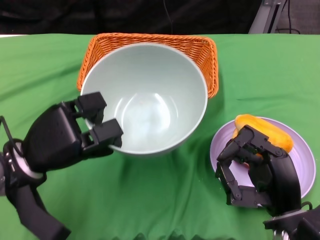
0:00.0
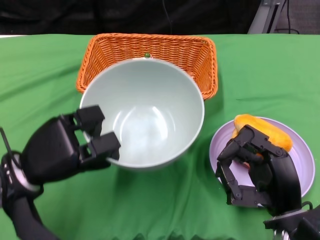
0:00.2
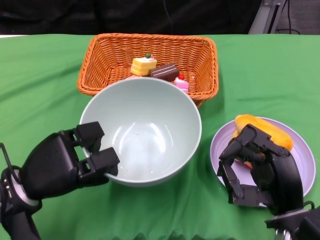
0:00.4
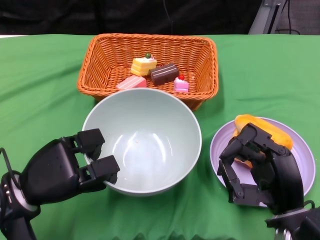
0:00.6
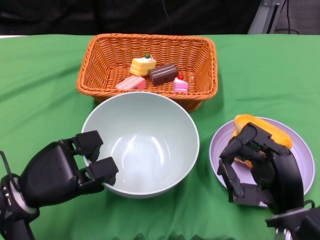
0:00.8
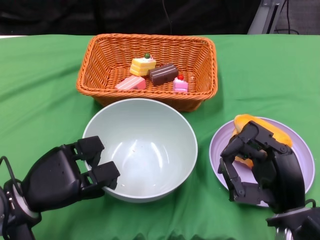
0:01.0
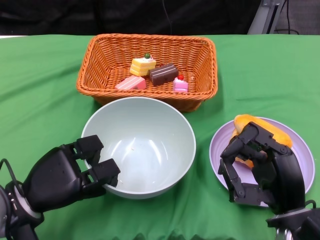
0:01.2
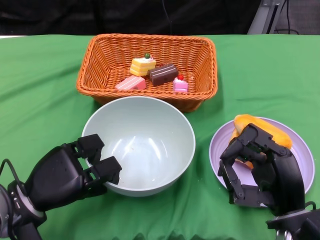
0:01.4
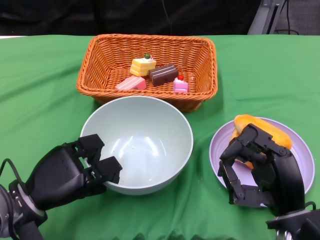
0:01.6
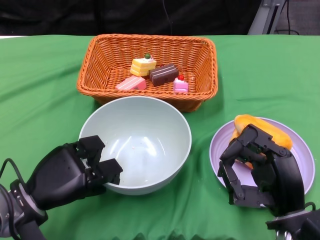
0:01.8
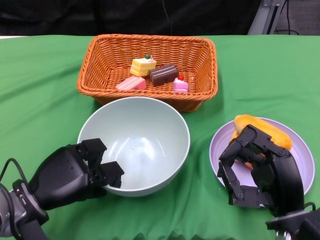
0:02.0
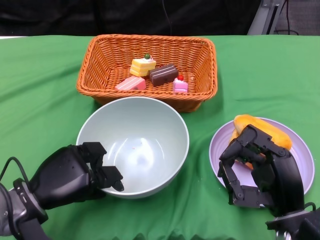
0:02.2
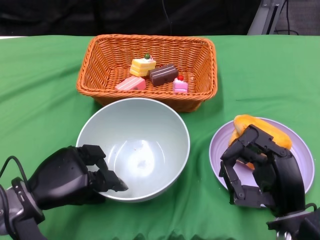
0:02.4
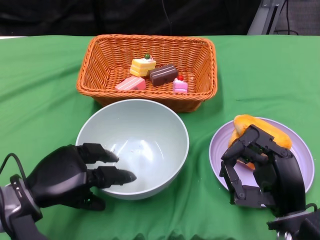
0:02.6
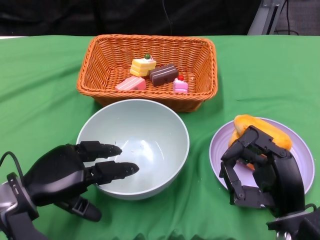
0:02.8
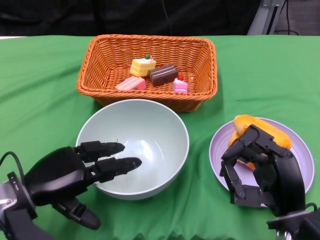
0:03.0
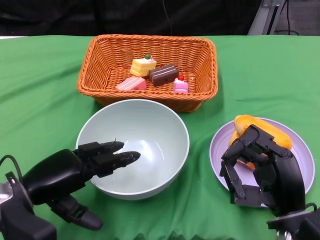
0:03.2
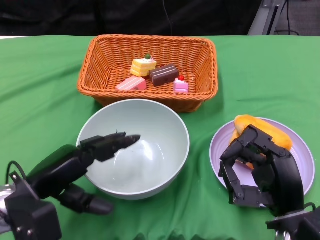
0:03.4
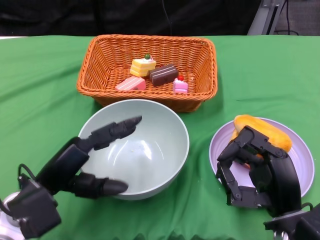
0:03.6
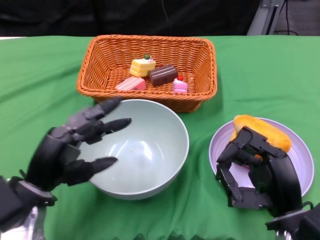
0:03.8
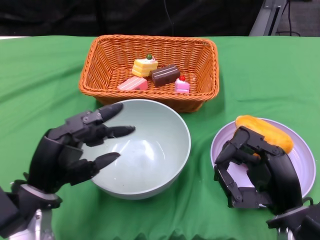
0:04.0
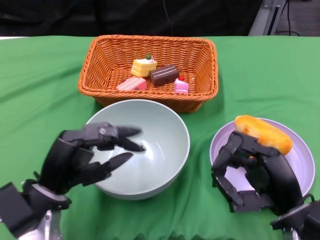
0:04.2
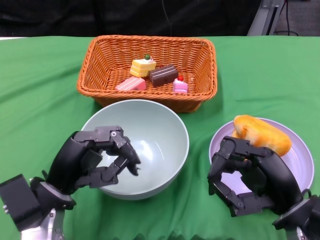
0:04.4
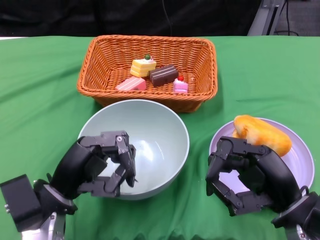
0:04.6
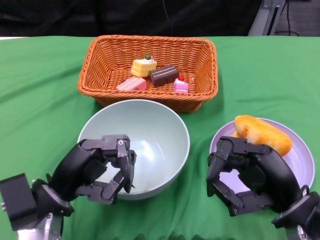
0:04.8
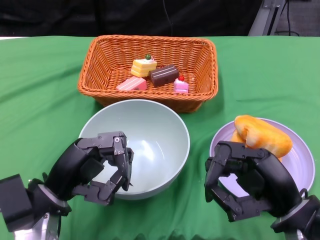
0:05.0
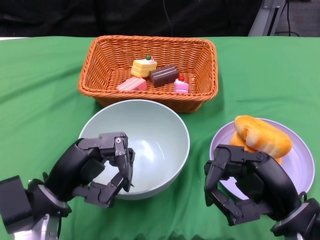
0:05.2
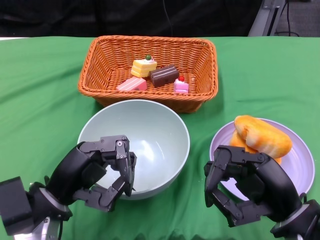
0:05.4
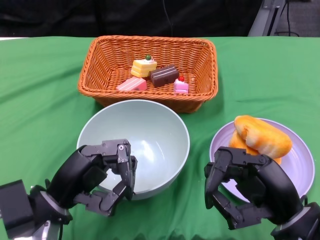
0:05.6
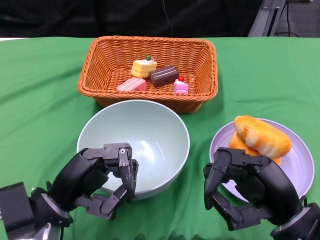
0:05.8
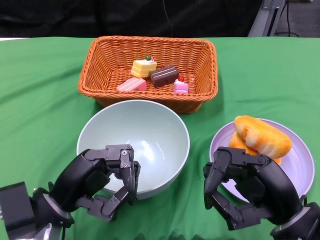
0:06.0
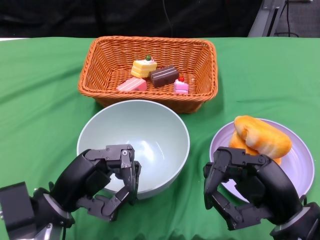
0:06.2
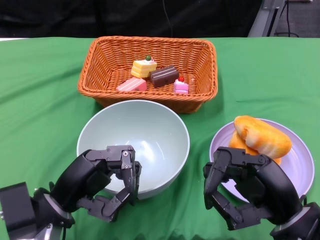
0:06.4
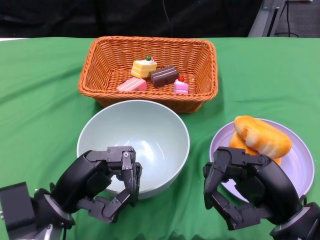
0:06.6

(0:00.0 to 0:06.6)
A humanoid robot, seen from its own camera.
Step, 0:00.0 - 0:02.6: Place the bowl on the table with the left gripper.
0:00.0 - 0:01.6: The left hand shifts some 5 cm downward.
0:05.0 - 0:06.6: The hands stay close to where they were, moving slightly.

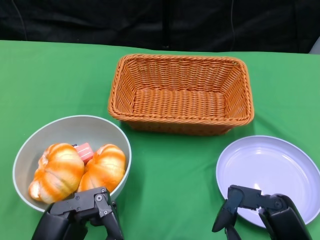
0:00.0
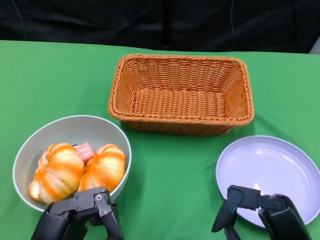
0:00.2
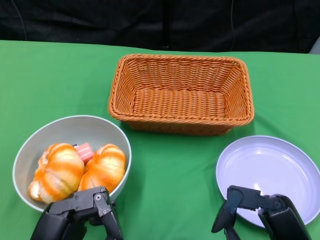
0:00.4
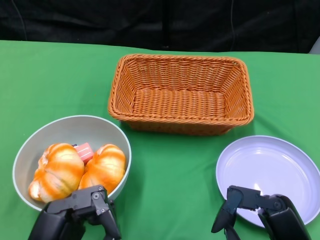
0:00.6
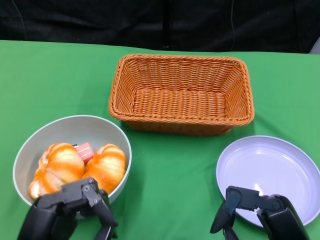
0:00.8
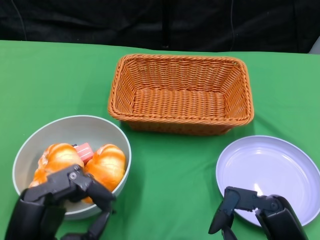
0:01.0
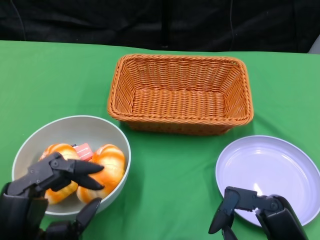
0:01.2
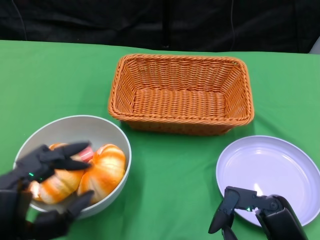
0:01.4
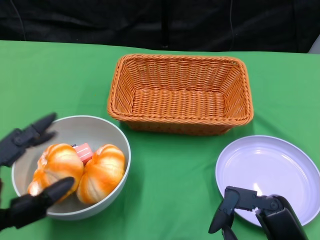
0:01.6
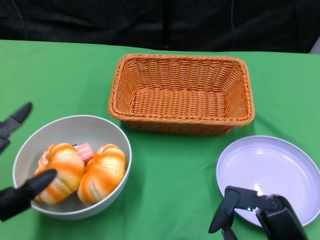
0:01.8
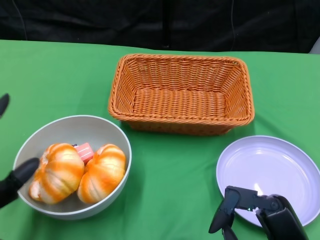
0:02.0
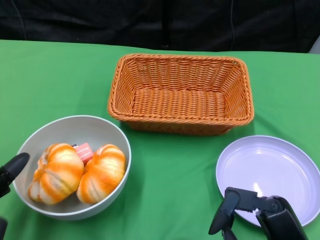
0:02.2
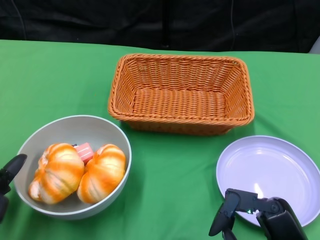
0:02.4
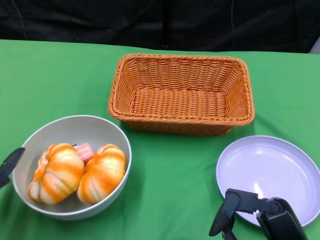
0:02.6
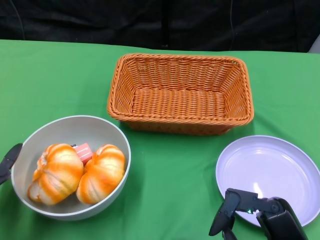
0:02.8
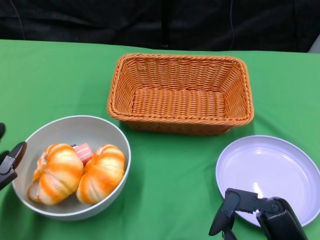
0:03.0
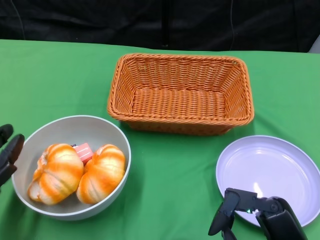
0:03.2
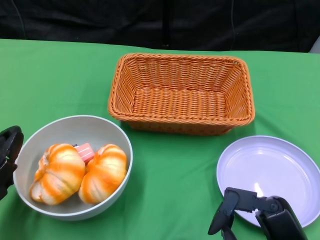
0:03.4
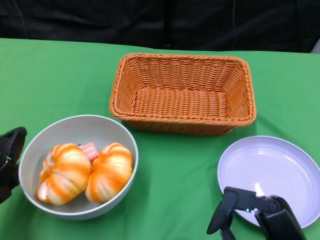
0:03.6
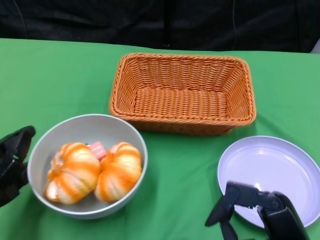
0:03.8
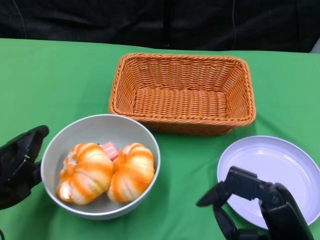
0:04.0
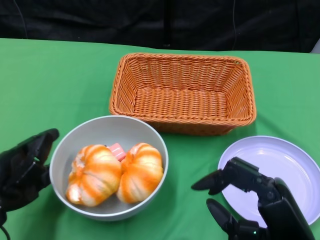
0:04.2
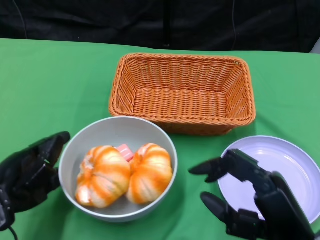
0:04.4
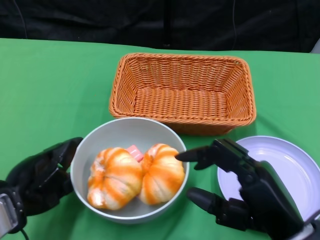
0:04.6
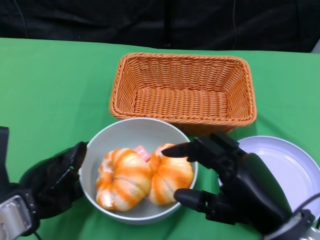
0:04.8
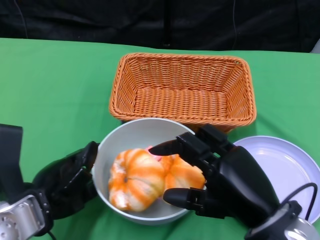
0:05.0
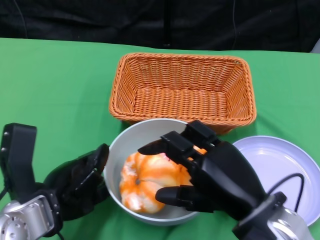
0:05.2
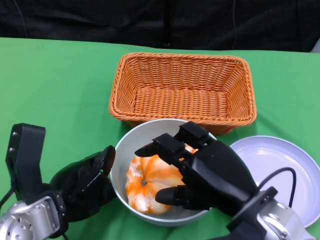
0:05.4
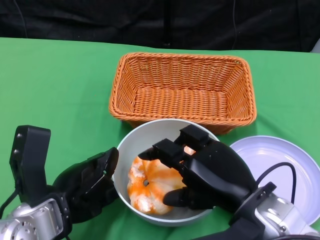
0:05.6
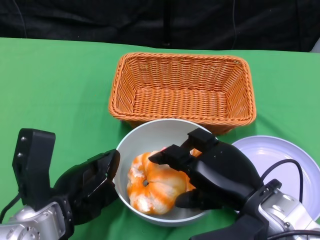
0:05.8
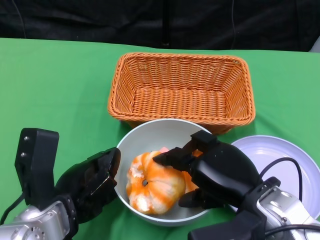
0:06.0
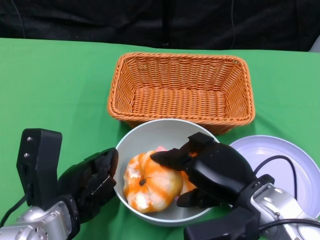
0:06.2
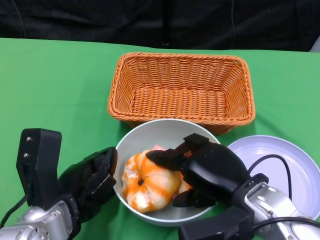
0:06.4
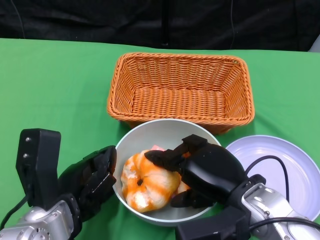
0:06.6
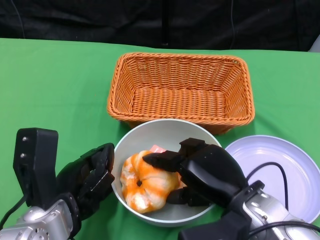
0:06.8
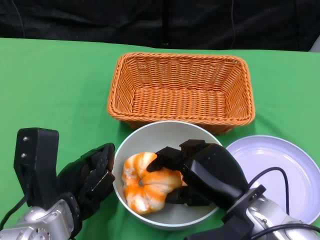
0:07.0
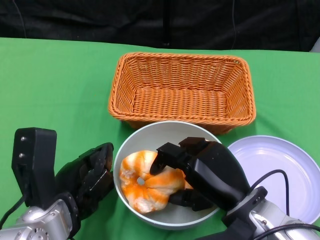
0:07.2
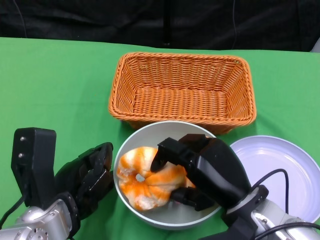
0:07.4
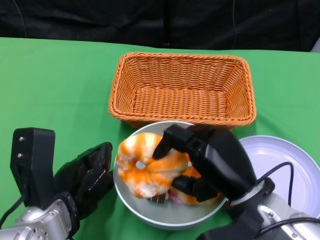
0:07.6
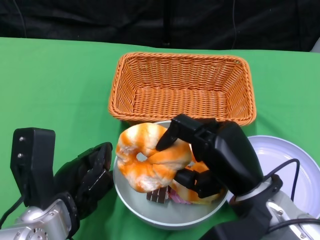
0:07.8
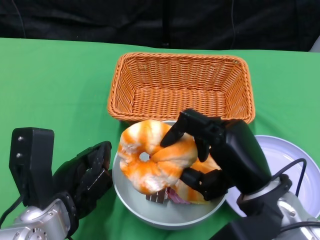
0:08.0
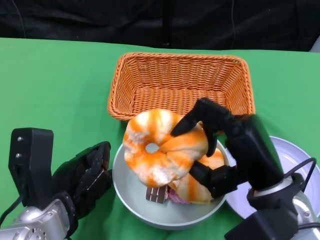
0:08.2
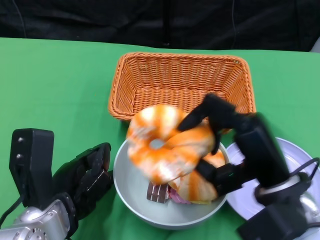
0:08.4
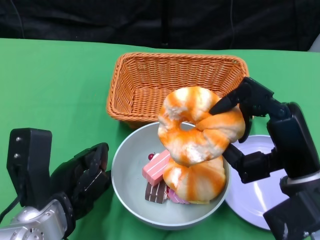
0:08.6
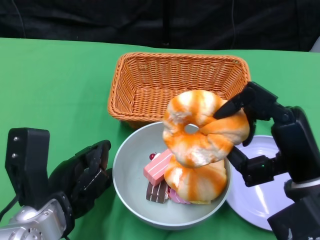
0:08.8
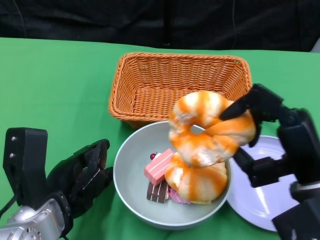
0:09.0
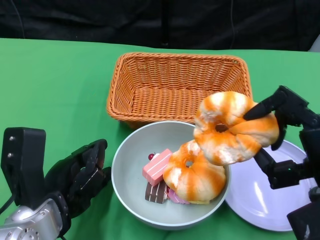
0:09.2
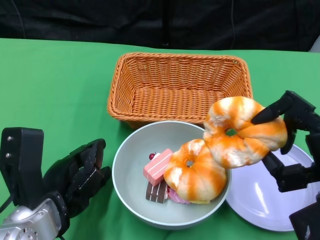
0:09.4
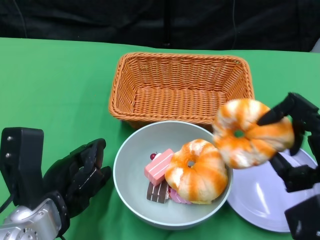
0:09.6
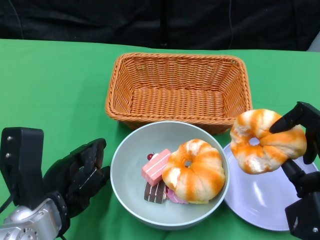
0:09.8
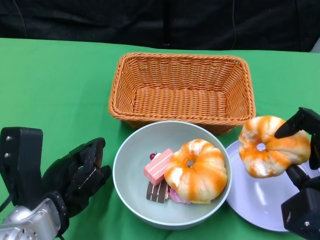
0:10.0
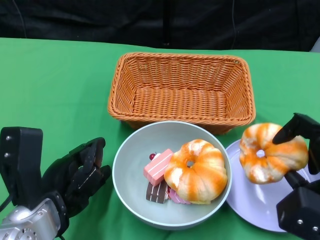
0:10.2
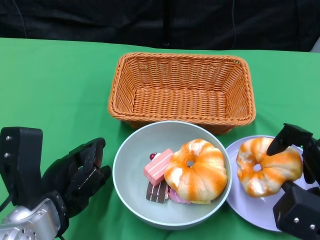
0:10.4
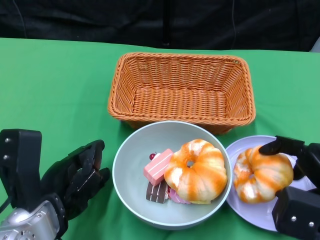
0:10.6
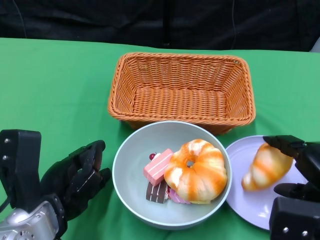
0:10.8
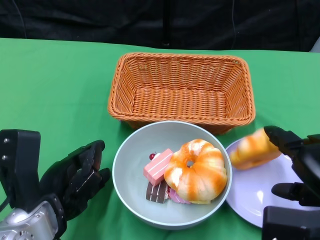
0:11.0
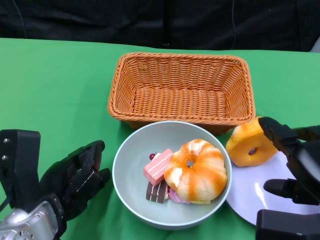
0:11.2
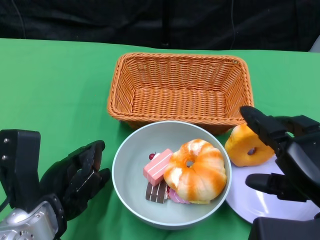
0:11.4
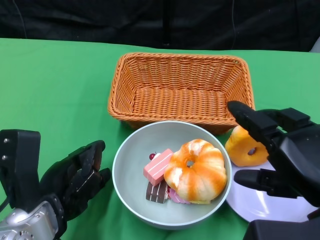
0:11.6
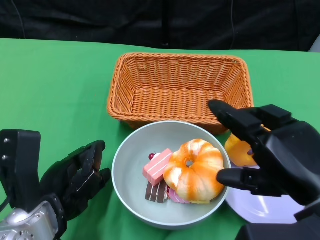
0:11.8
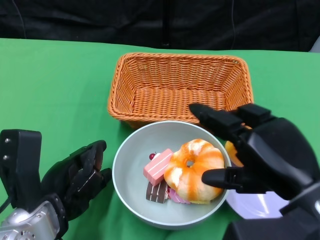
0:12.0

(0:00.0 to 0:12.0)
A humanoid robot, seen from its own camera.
Step, 0:00.0 - 0:05.4: Push the bowl to the center of the table using the left gripper.
Step, 0:05.6 - 0:11.2: Pick up the bread with the right gripper and place it on the plate.
0:01.6 - 0:03.0: The left hand travels forward by roughly 5 cm.
0:04.4 - 0:06.0: The right hand moves forward, approximately 5 cm. The left hand moves to the right, roughly 10 cm.
0:07.6 - 0:09.0: The right hand travels to the right by some 5 cm.
0:09.0 - 0:10.4: The right hand travels to the right by about 5 cm.
0:10.4 - 0:12.0: The right hand heads upward and to the left, covering approximately 10 cm.

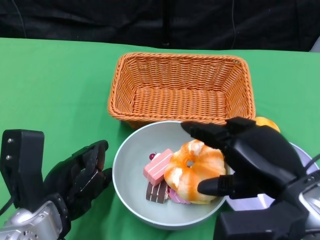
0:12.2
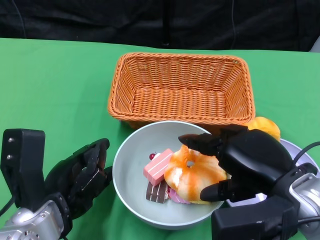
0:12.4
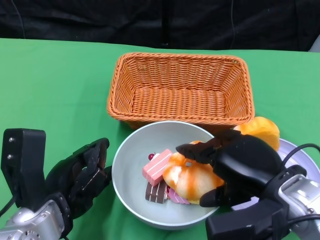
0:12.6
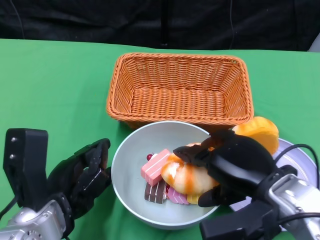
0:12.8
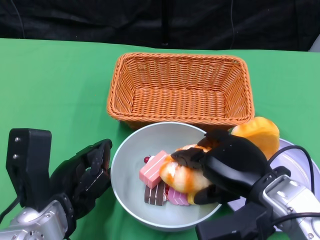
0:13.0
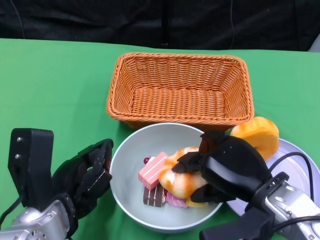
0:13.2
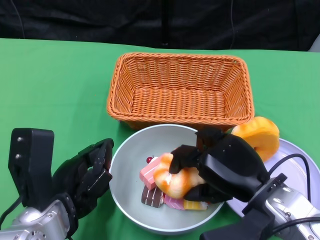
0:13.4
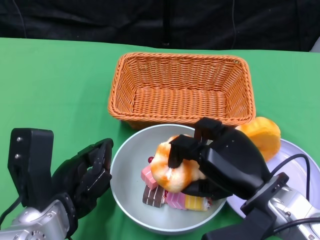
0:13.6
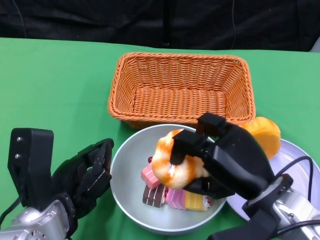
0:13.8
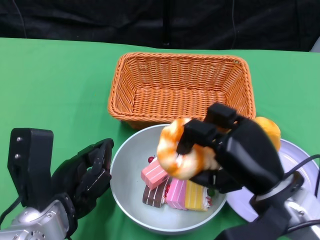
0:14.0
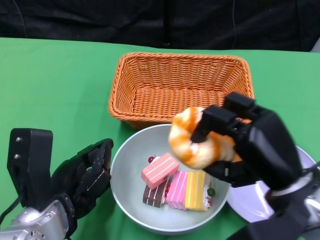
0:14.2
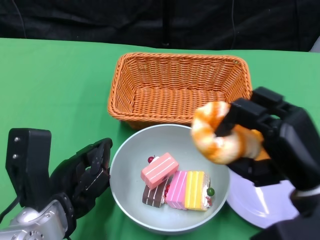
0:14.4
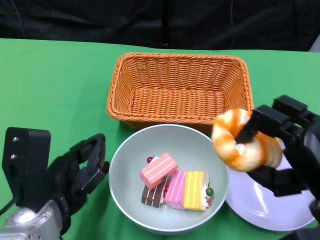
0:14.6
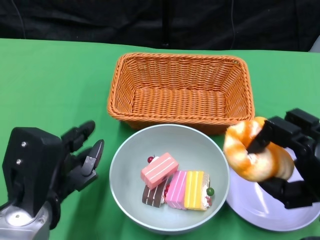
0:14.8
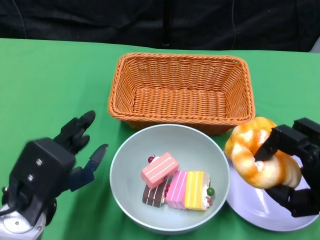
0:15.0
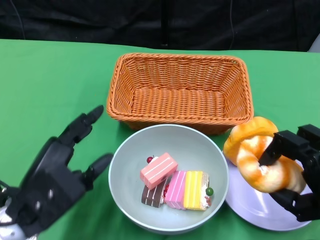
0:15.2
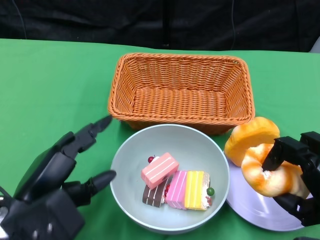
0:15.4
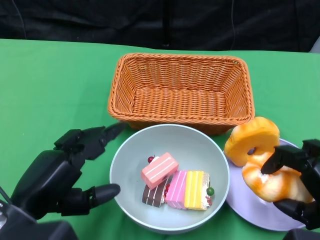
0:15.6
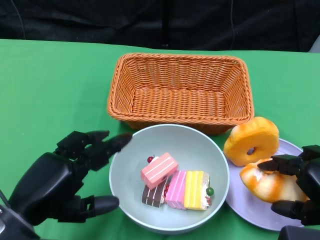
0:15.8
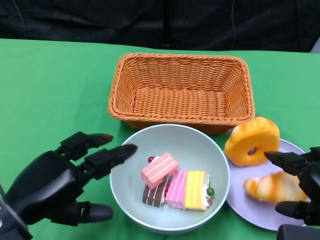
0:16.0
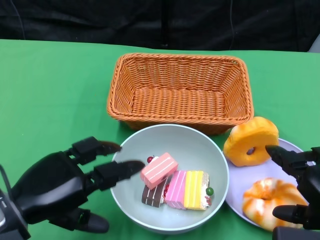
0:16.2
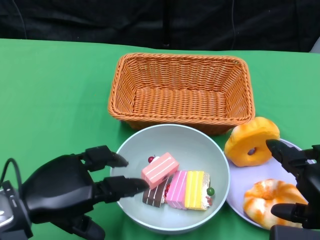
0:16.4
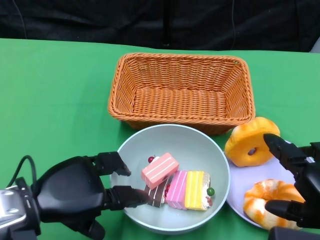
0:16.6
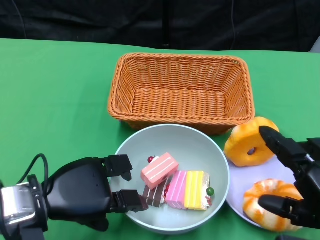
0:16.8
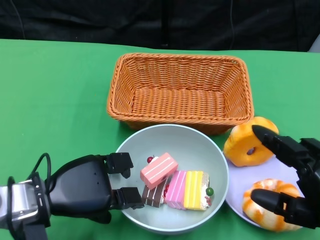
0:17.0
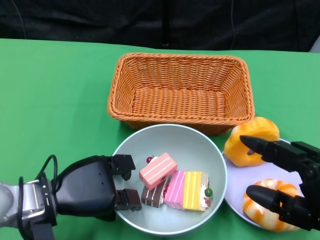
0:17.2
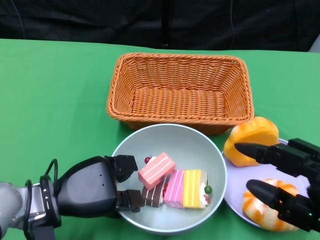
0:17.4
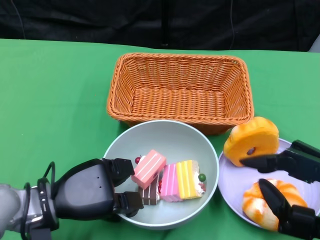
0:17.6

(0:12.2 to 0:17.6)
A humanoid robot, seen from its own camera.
Step, 0:12.2 - 0:16.6: Pick up the bread with the right gripper and place it on the plate.
0:12.2 - 0:13.6: The right hand travels downward by some 5 cm.
0:13.6 - 0:15.0: The right hand travels to the right and backward by roughly 10 cm.
0:16.2 - 0:17.6: The left hand shifts roughly 5 cm downward.
